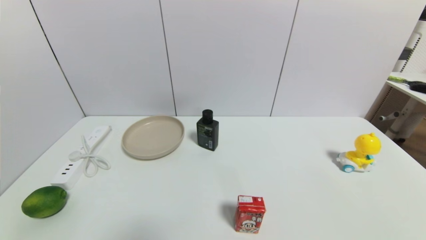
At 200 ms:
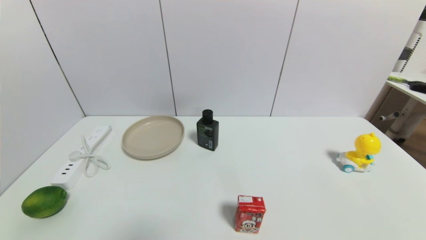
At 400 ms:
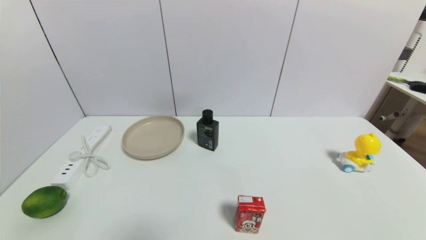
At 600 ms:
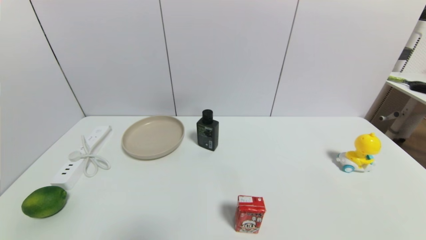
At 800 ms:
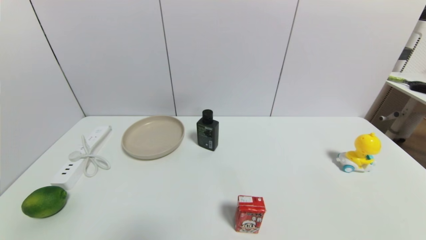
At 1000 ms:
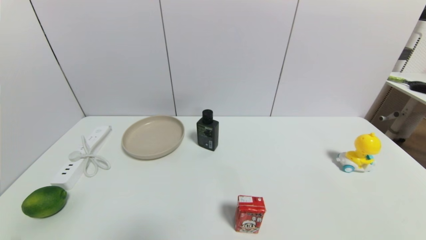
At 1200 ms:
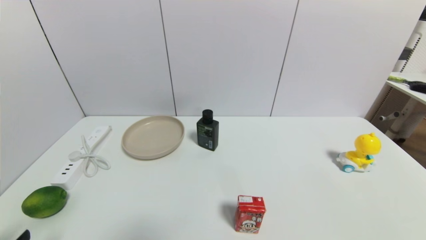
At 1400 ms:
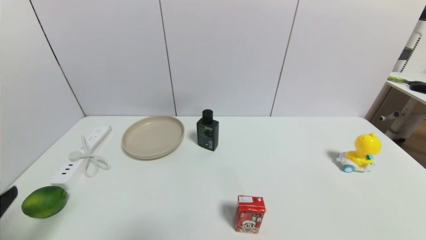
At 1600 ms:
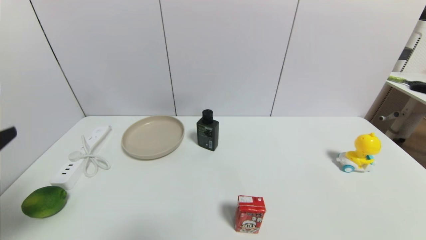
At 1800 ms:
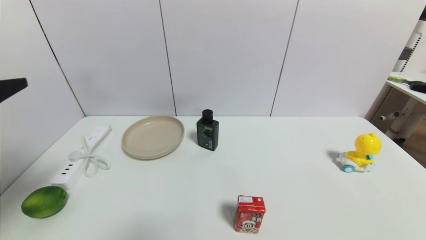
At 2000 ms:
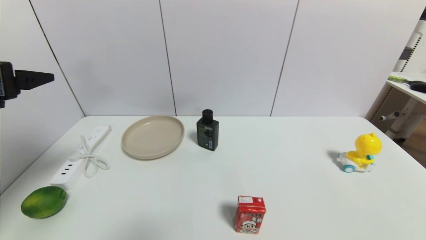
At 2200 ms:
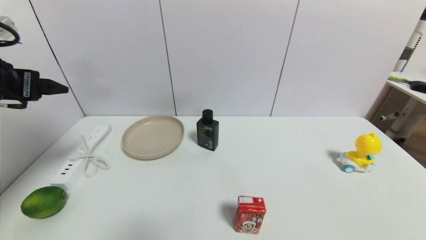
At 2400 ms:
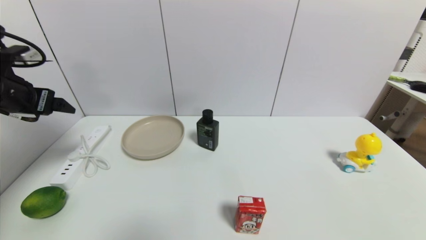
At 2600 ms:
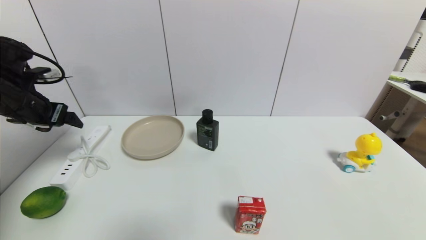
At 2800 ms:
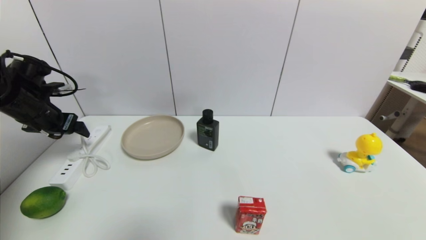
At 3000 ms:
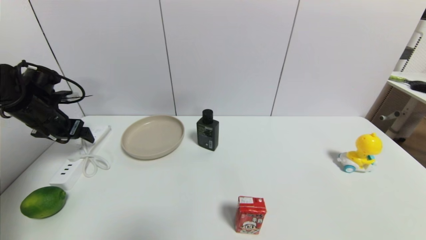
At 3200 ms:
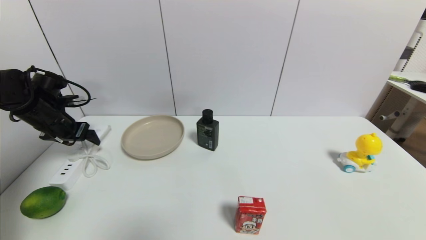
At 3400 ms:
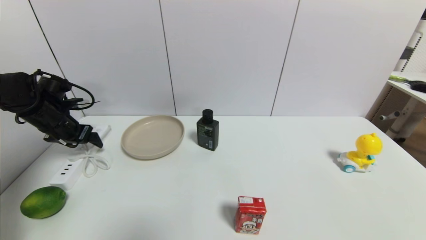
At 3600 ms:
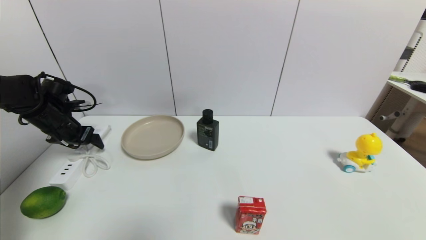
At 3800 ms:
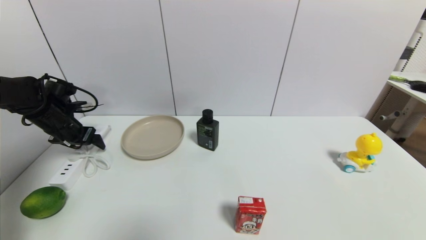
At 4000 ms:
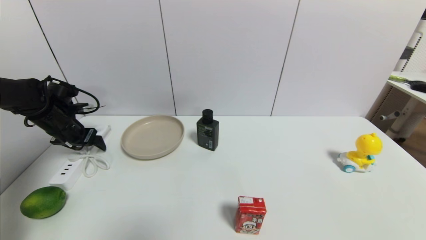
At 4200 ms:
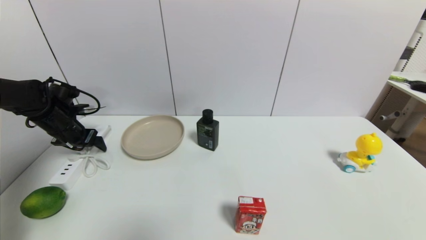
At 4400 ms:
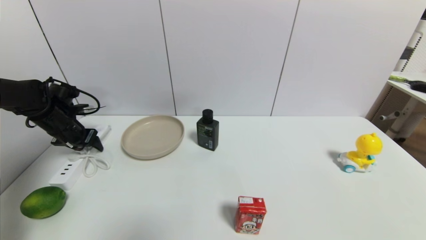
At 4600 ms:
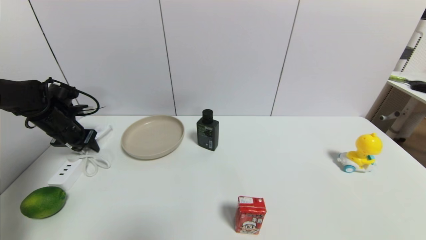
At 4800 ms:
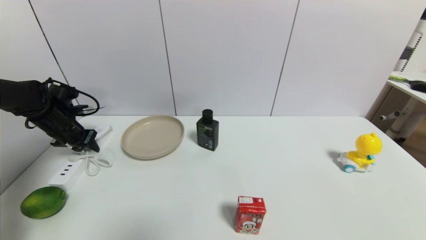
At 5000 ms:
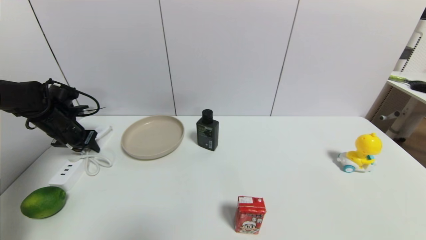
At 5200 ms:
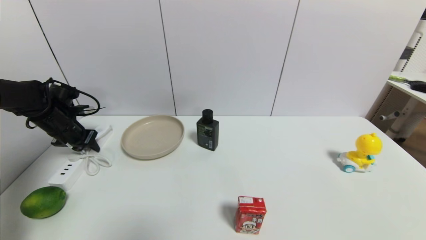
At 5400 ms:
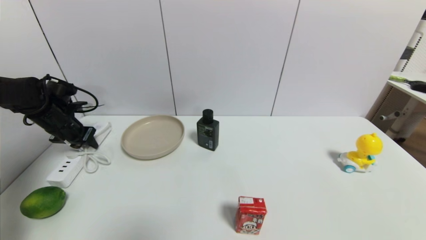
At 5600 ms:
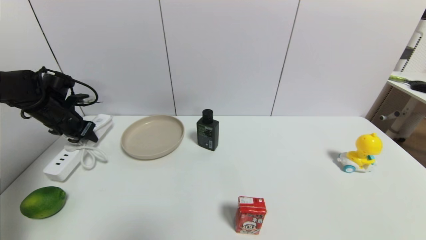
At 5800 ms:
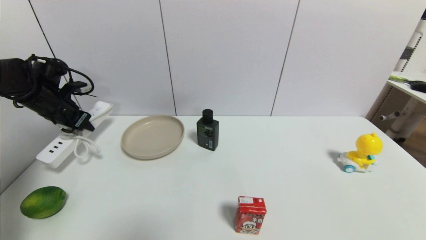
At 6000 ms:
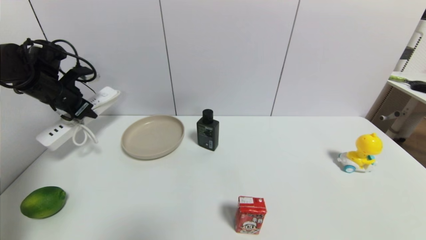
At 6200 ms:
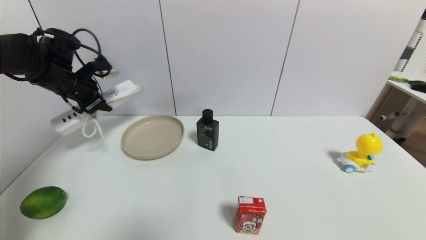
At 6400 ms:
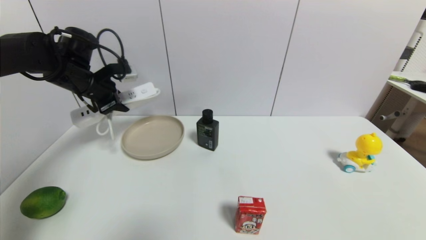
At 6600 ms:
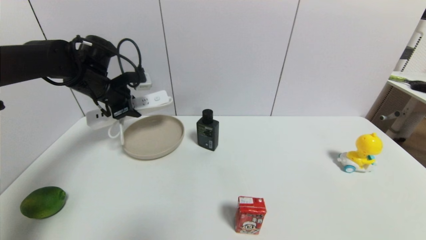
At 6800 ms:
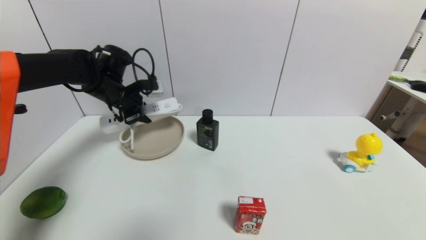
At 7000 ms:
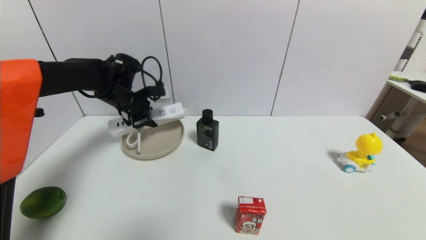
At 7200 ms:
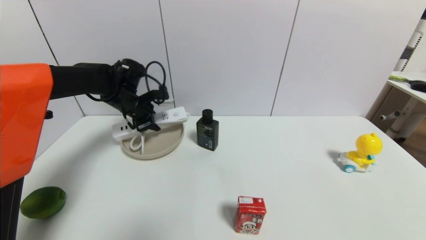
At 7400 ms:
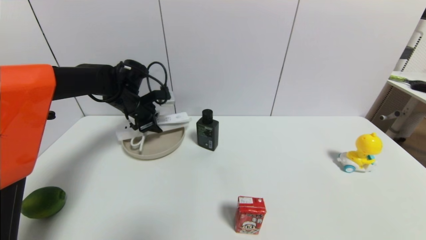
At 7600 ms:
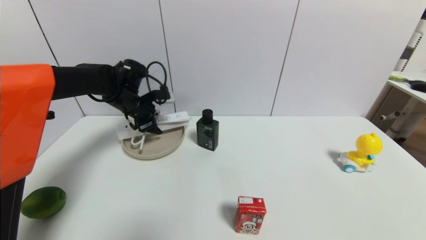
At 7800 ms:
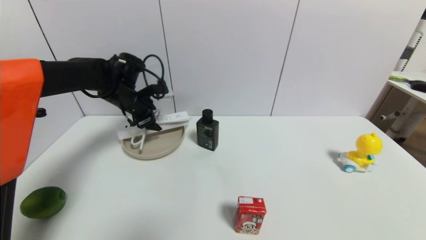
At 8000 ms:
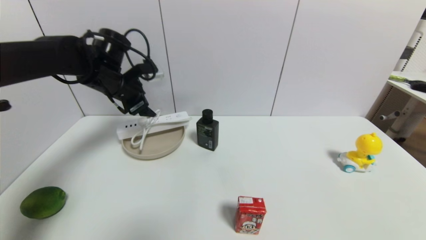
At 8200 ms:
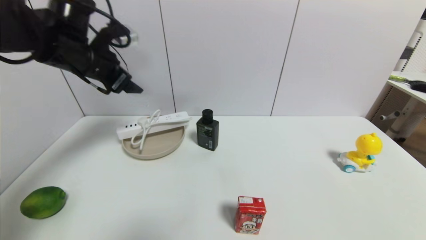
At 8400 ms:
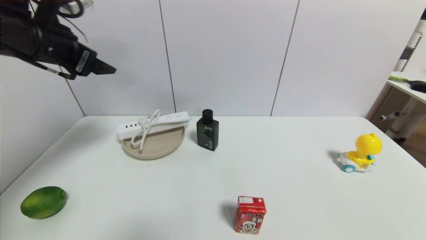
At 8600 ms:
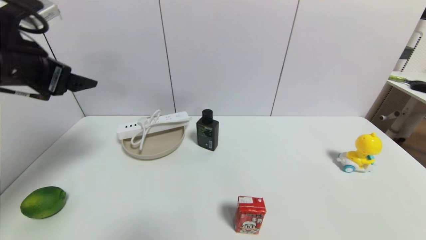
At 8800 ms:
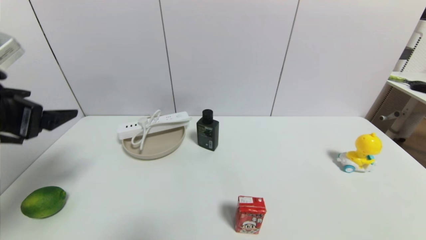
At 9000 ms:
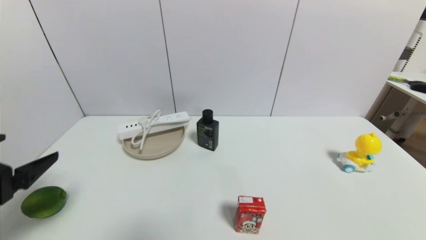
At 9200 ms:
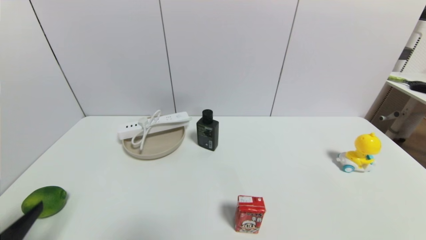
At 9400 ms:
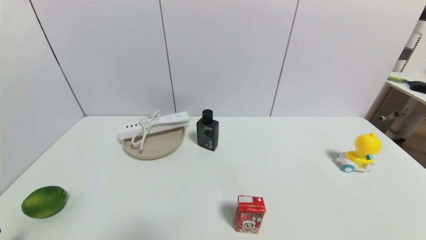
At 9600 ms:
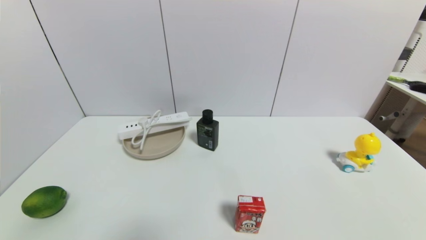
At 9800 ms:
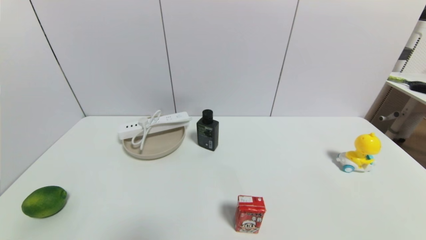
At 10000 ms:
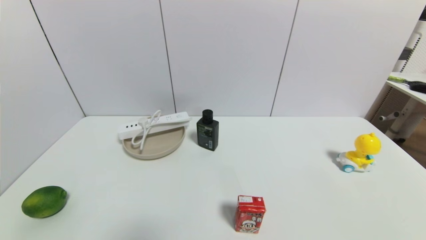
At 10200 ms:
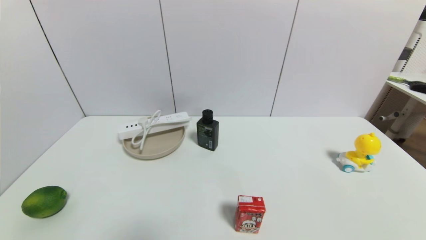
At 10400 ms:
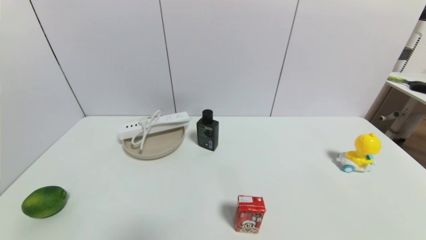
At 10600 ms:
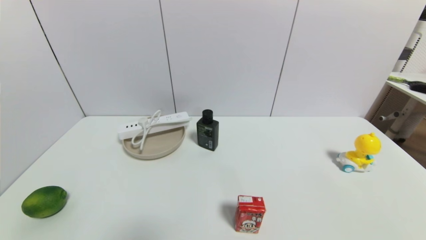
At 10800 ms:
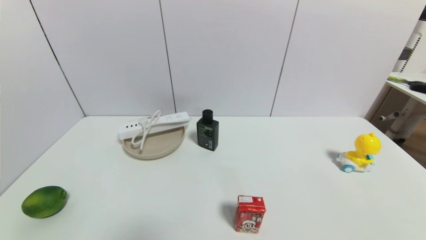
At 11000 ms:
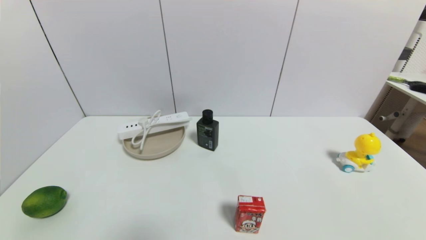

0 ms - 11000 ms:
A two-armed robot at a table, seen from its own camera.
Task of the whole recording: use a gripper to pick the target object and place on the brown plate.
Step, 0 ms - 5000 ms: Grasp the plugboard with the left gripper.
Step, 5200 ms - 7800 ms: Place the plugboard on the brown plate with the left gripper.
0 ms - 1600 ms: The left gripper moves upward and forward, approximately 20 cm.
1600 ms - 3200 ms: The left gripper goes about 30 cm forward.
3200 ms - 4800 ms: The left gripper closes up.
4800 ms - 6200 ms: The left gripper is displaced upward and to the right by approximately 15 cm.
6200 ms - 7800 ms: The left gripper goes some 10 cm to the right, and opens its fingers.
7800 ms - 9400 ms: The left gripper moves backward, about 40 cm.

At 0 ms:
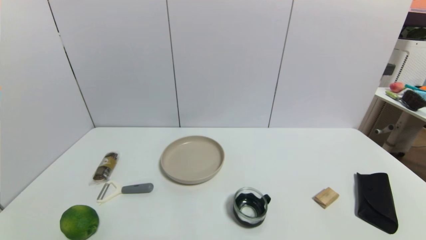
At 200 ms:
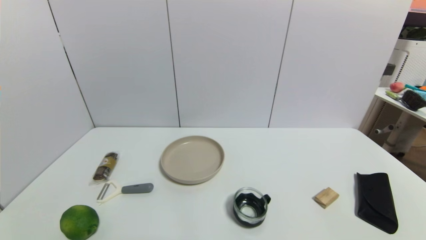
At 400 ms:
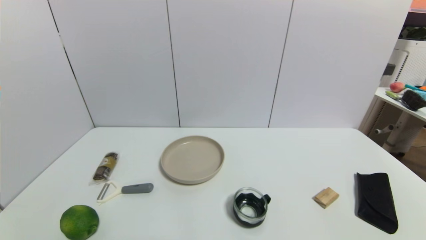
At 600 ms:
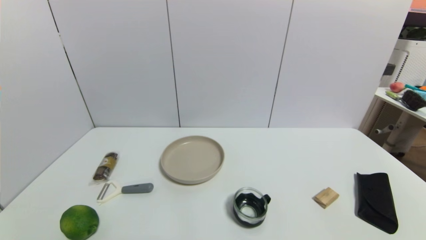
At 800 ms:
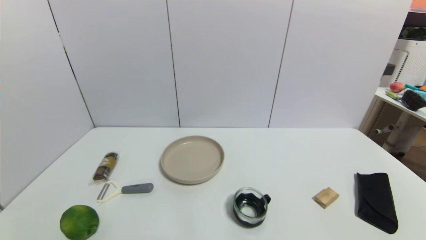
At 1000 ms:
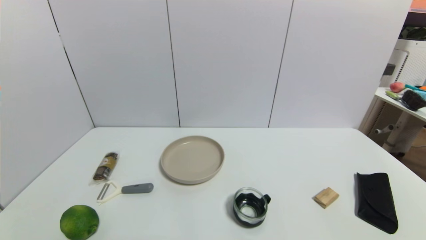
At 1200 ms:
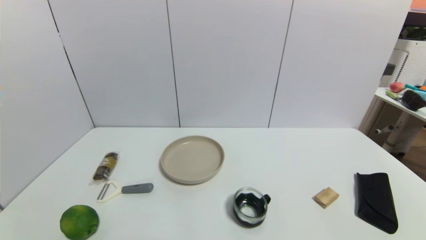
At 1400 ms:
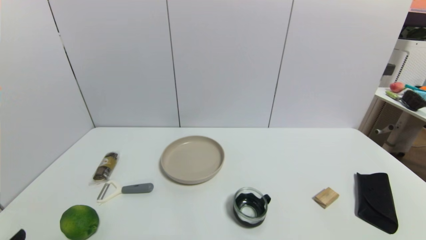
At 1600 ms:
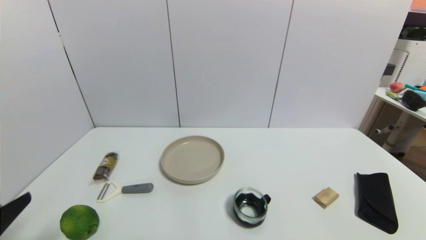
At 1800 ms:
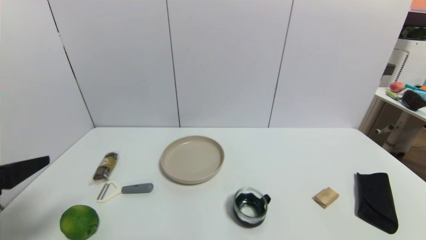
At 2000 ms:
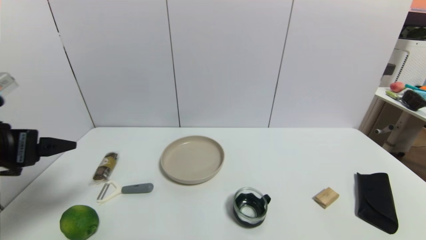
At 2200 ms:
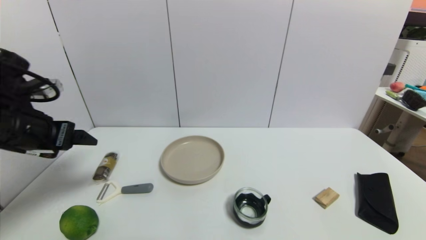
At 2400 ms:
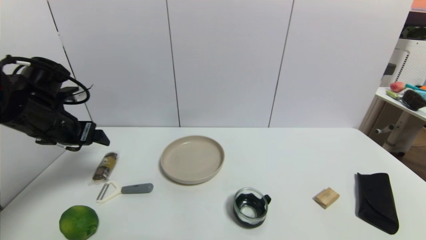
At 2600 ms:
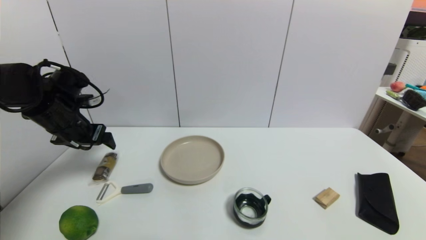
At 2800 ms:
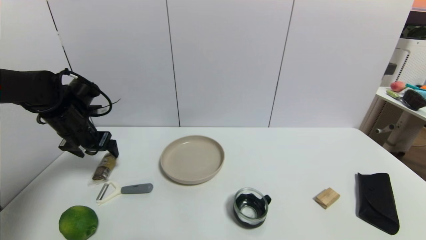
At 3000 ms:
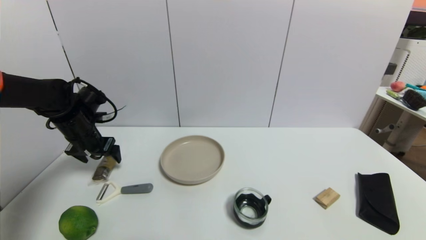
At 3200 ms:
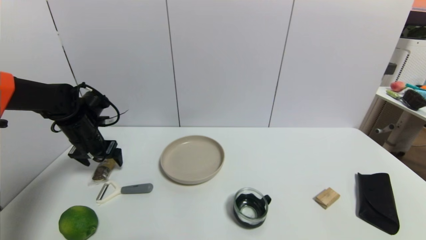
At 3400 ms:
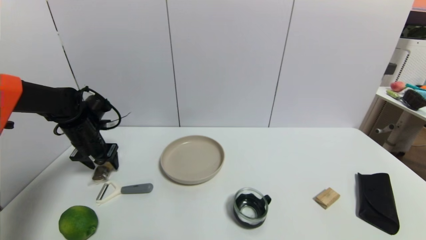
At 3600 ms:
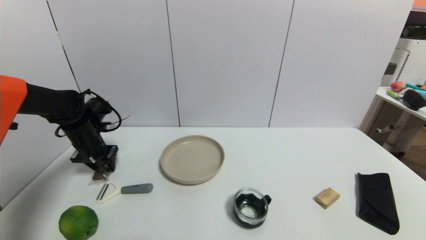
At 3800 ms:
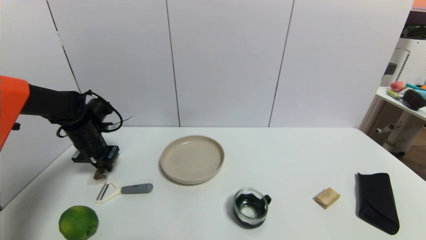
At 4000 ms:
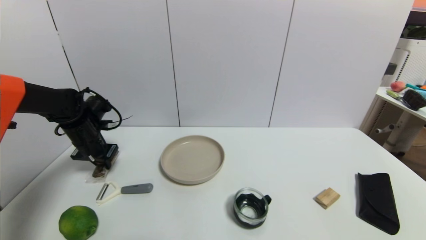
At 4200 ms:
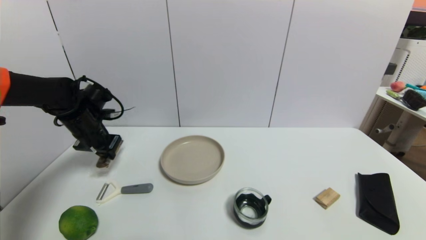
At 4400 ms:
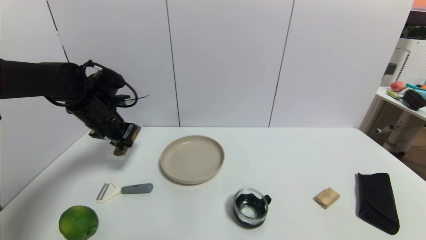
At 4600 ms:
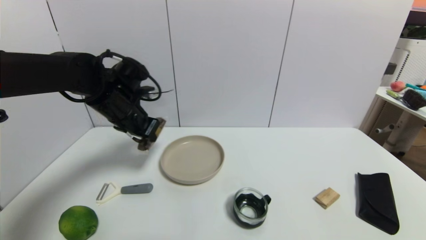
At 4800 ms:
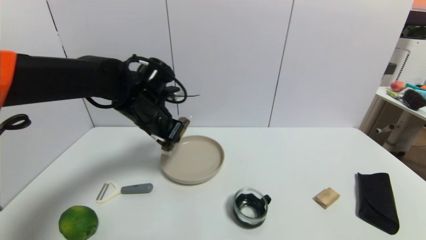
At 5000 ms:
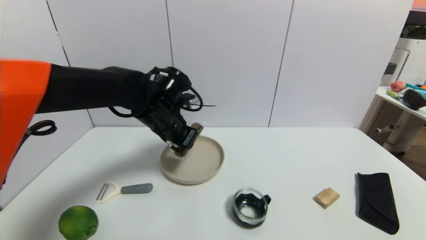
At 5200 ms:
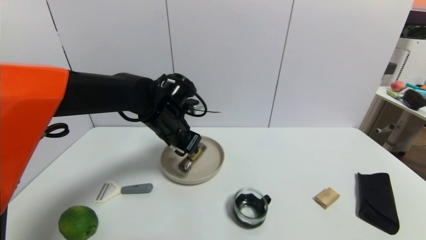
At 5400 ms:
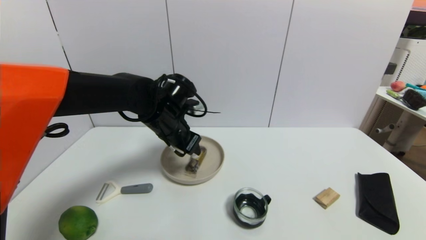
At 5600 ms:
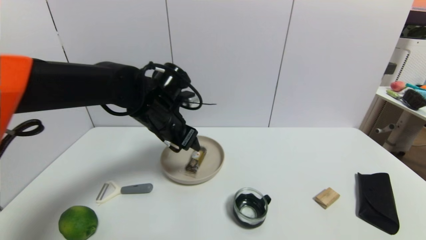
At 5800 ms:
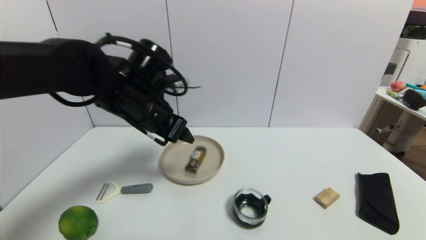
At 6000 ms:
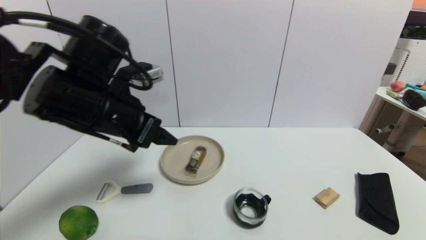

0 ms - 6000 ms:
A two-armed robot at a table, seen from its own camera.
Task of the whole recording: use a gripper to pick the target object and place on the brown plate.
Step, 0 ms - 4000 ms: Grasp the chocolate with the left gripper.
Step, 4200 ms - 5400 ms: Place the chocolate on the brown plate with the left gripper.
0 ms - 1600 ms: The left gripper heads upward and forward, covering roughly 15 cm.
1600 ms - 3000 ms: The left gripper moves forward, roughly 30 cm.
3000 ms - 4400 ms: The left gripper goes some 10 cm to the right and upward, and closes.
4400 ms - 6000 ms: The left gripper goes about 15 cm backward, upward and to the right, and opens its fingers.
